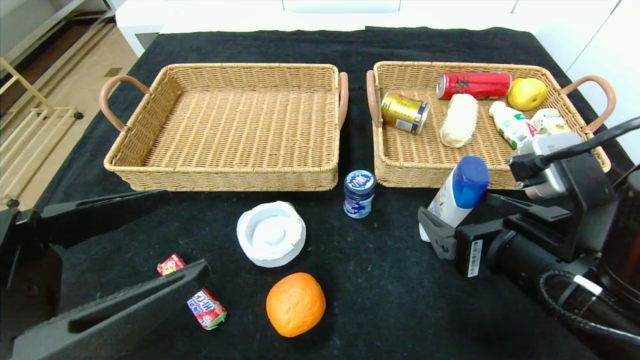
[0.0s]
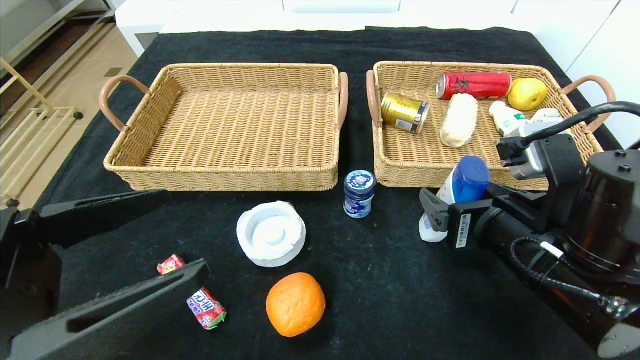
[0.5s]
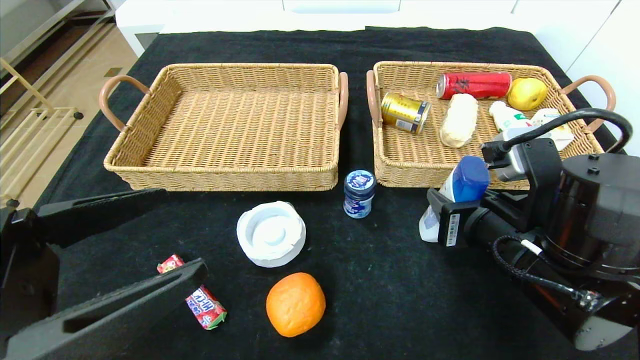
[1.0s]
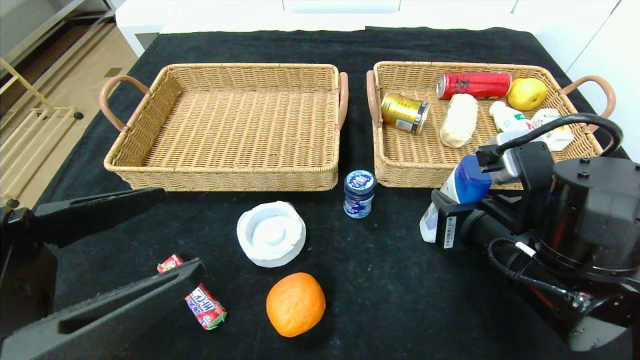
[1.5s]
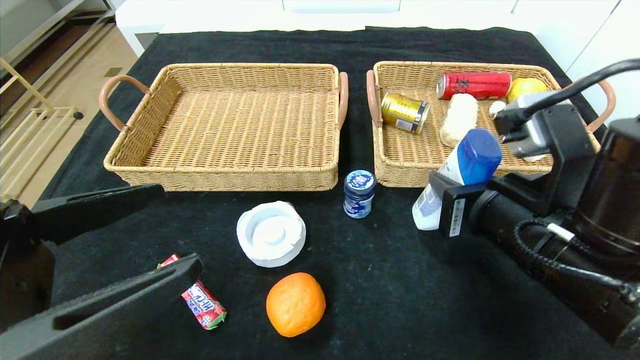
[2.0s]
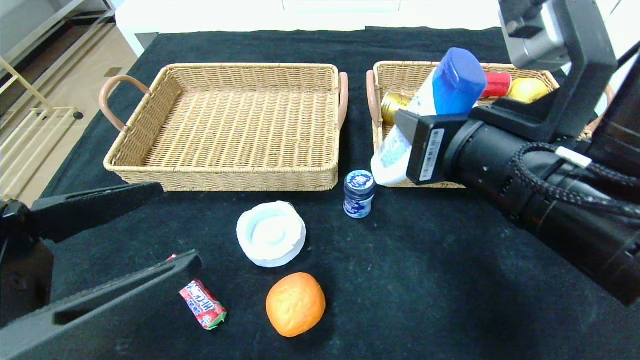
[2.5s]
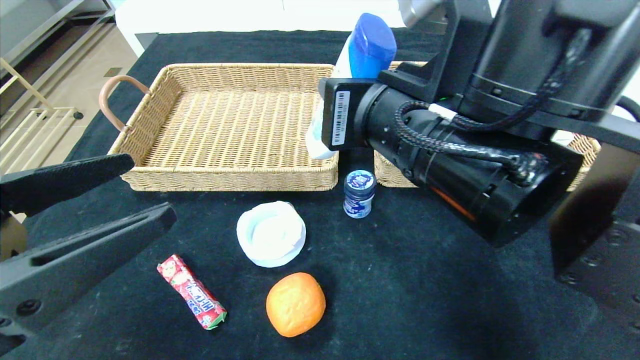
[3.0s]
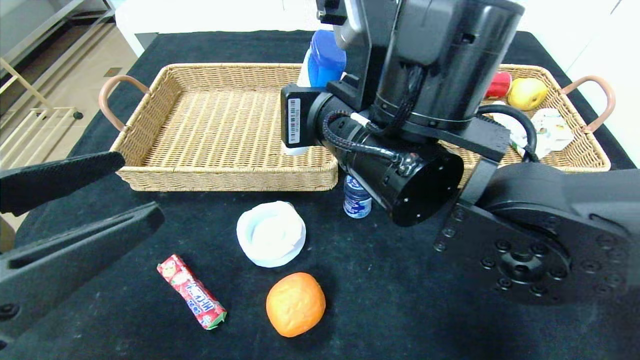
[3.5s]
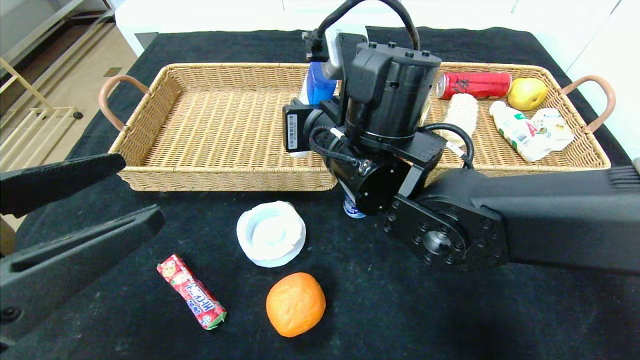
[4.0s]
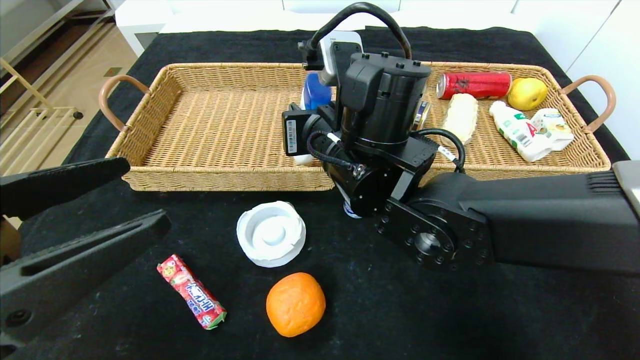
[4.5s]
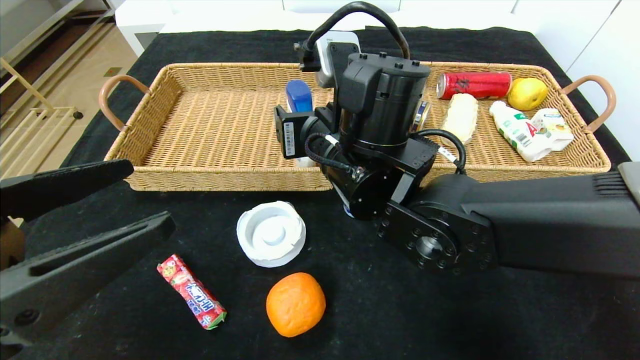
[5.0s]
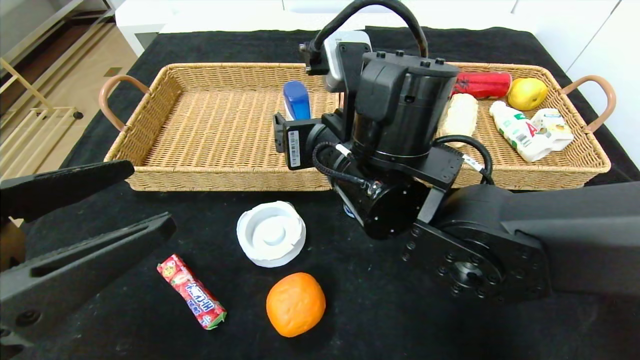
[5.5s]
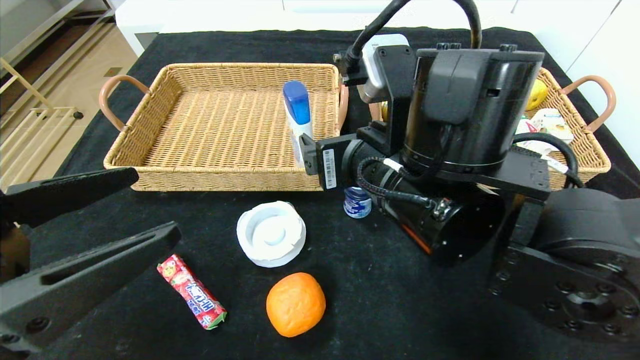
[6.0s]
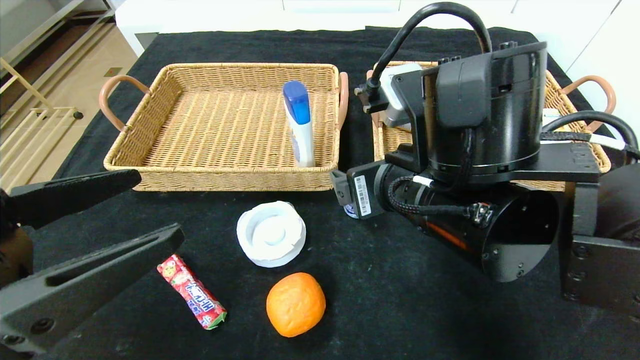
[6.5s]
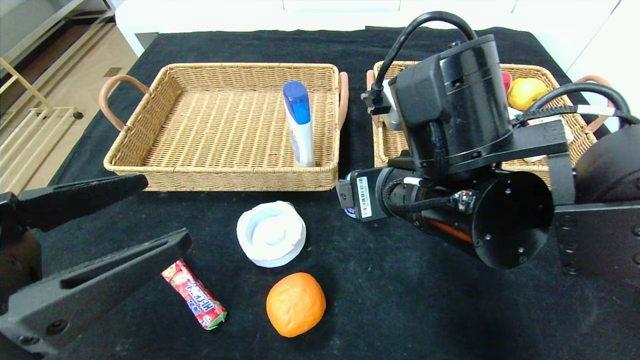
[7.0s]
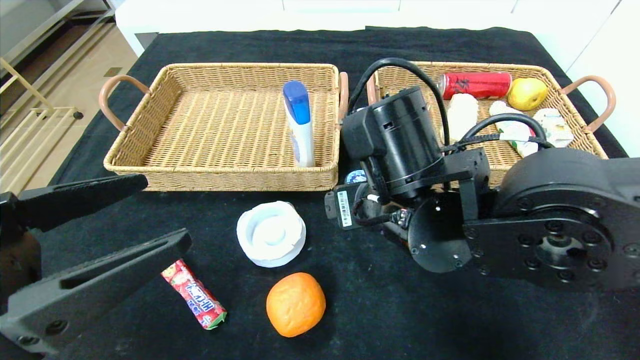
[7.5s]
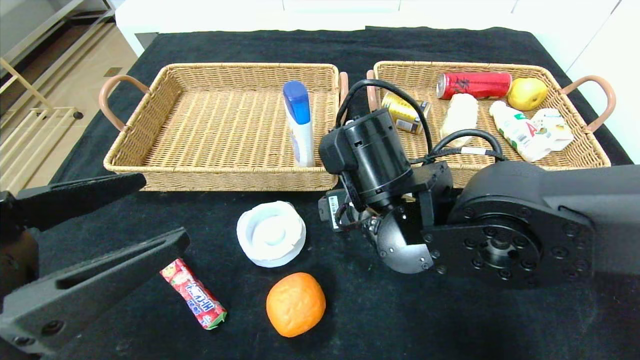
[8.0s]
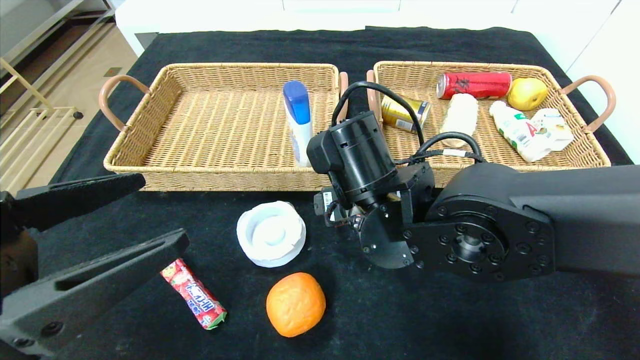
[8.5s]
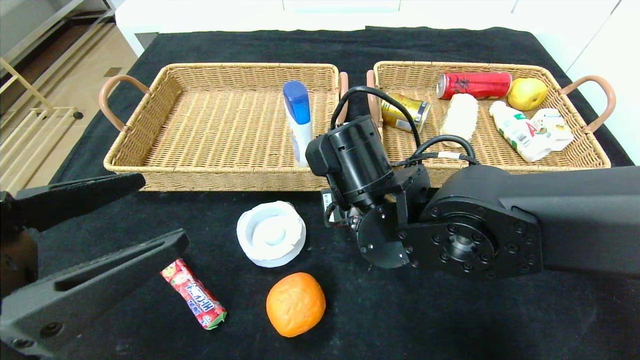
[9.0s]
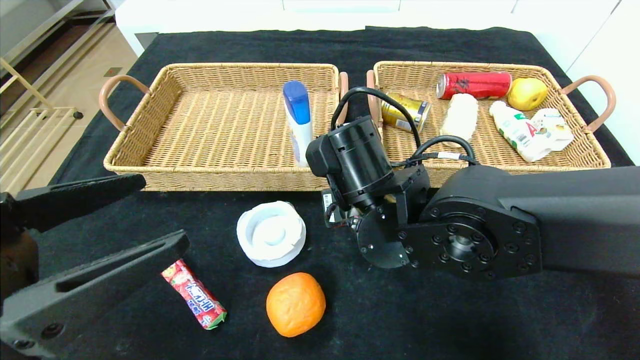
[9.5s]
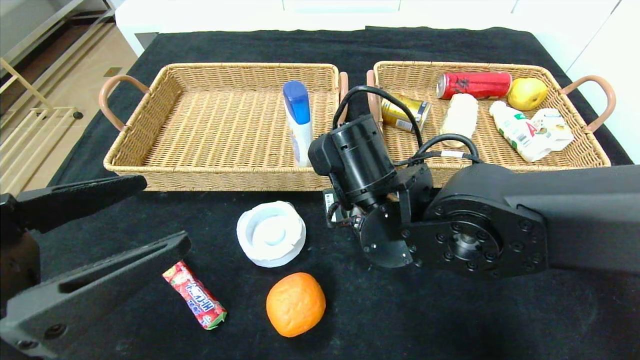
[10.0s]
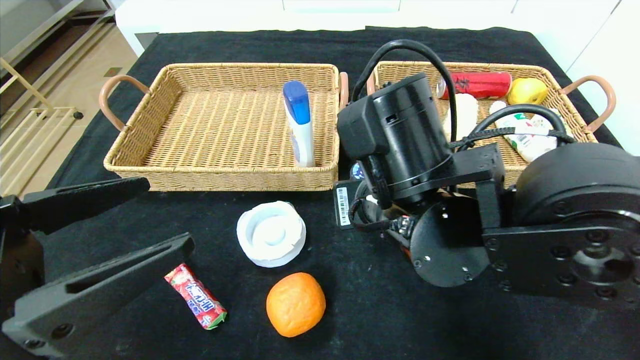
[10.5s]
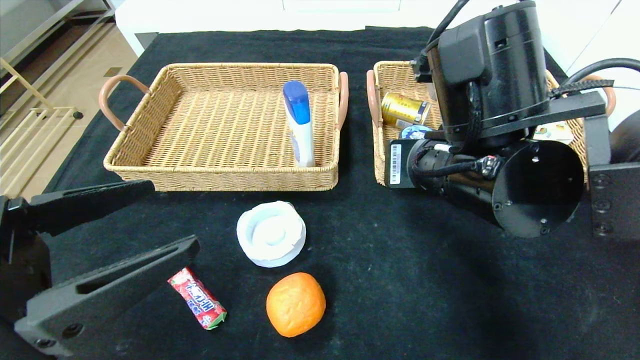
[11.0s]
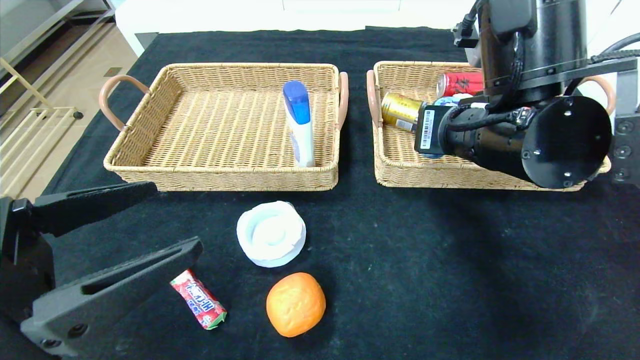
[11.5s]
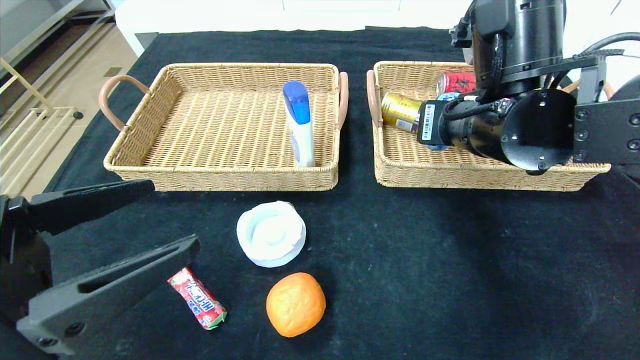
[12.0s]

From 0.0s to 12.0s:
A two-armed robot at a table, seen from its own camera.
From 0.0s to 2.0s: The right gripper closes.
From 2.0s to 4.0s: The right gripper is displaced to the left and forward by roughly 20 cm.
From 4.0s to 6.0s: The right gripper heads backward, covering some 5 cm, and opens up.
From 6.0s to 8.0s: The right gripper moves roughly 5 cm.
From 8.0s to 10.0s: The right gripper closes.
From 10.0s to 12.0s: The right gripper moves to the right and upward, some 15 cm.

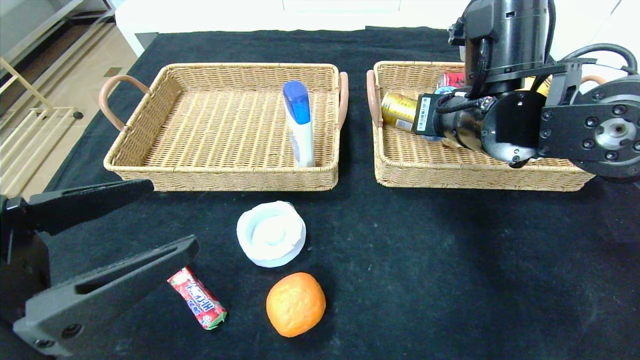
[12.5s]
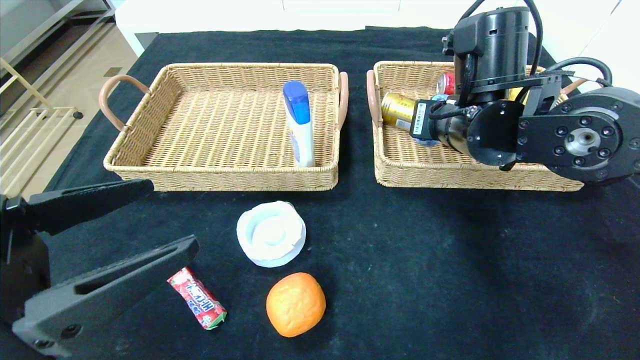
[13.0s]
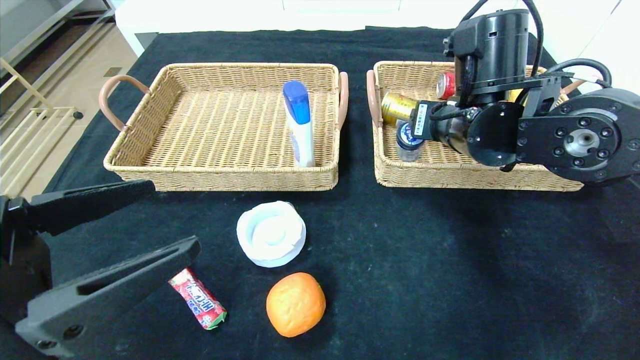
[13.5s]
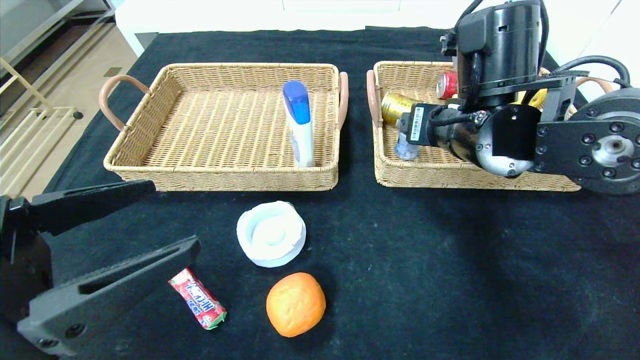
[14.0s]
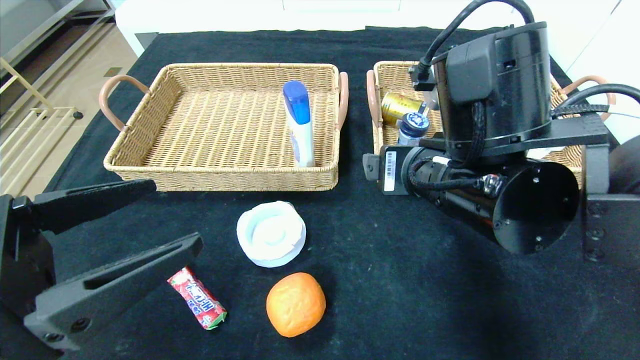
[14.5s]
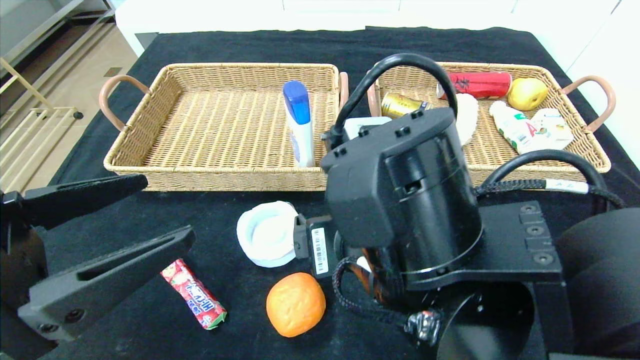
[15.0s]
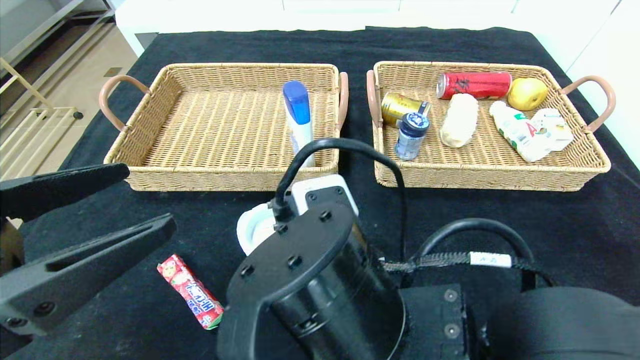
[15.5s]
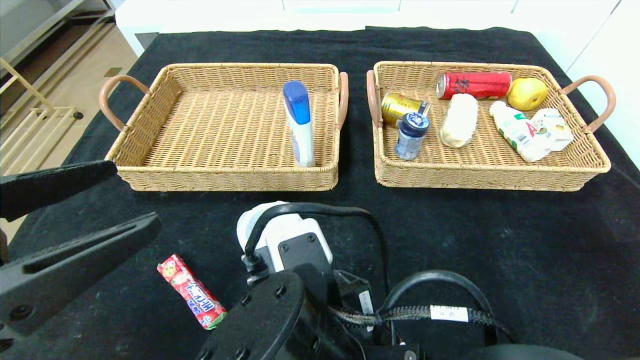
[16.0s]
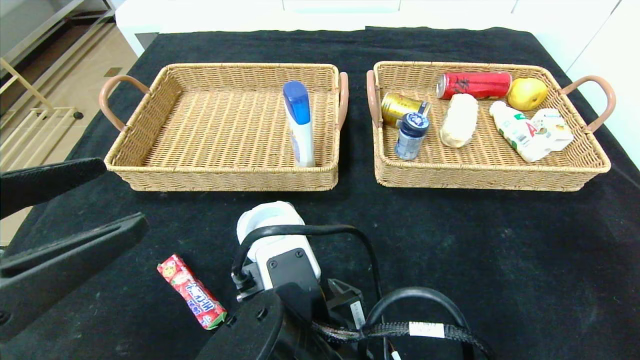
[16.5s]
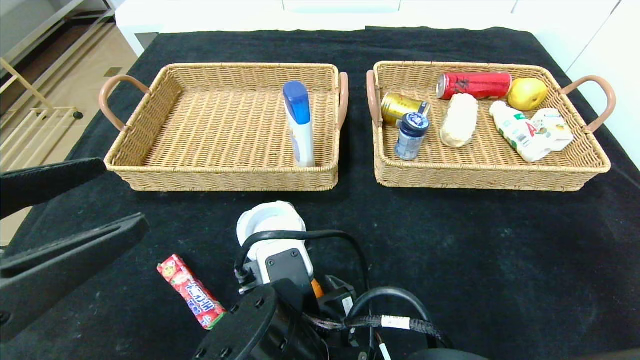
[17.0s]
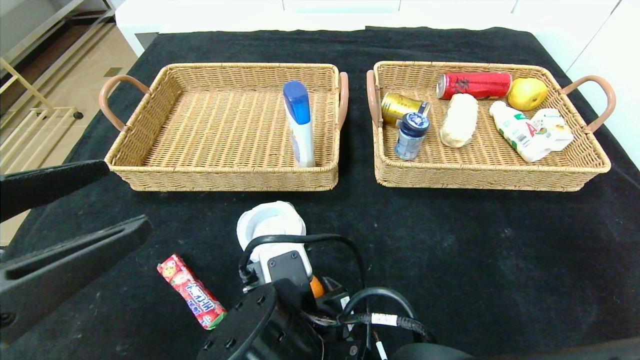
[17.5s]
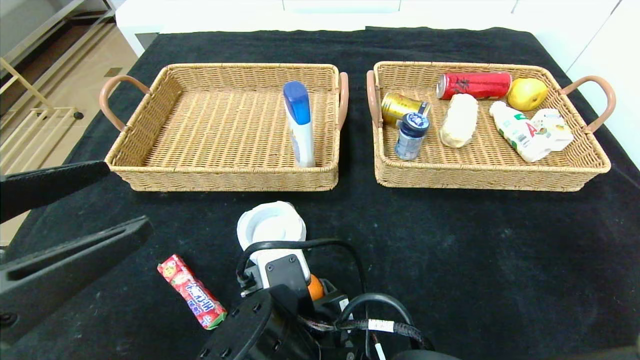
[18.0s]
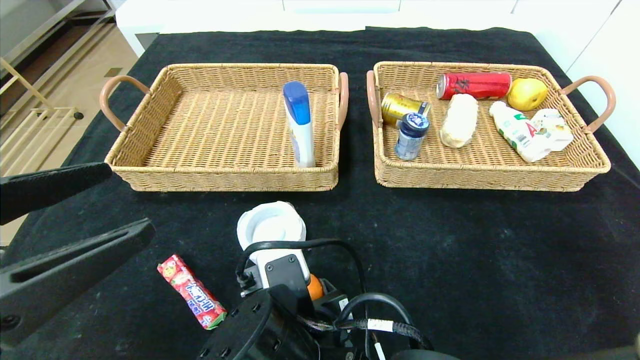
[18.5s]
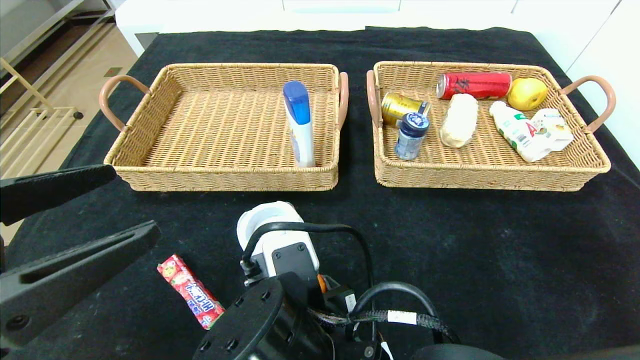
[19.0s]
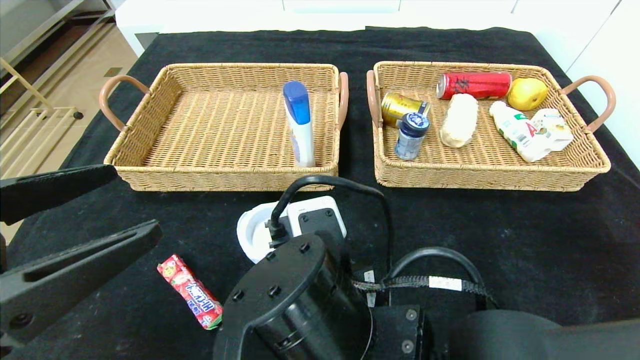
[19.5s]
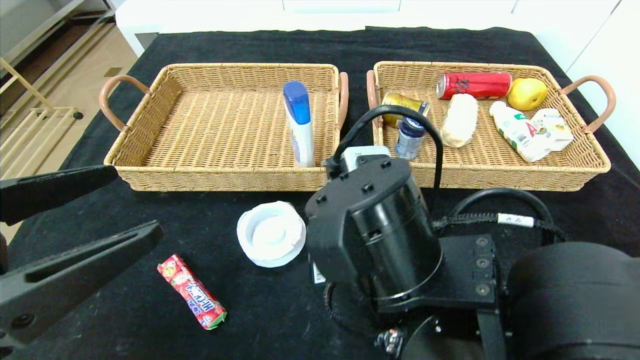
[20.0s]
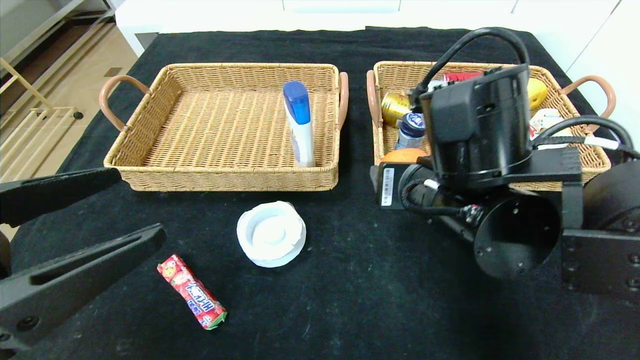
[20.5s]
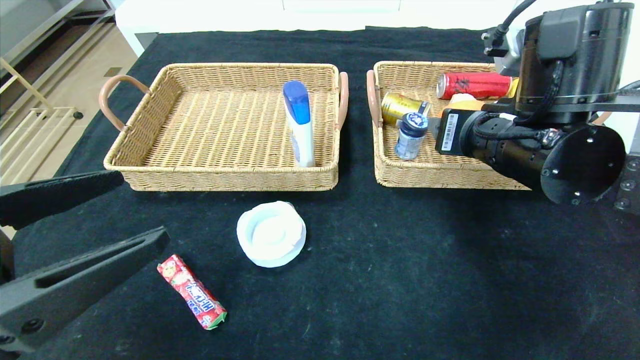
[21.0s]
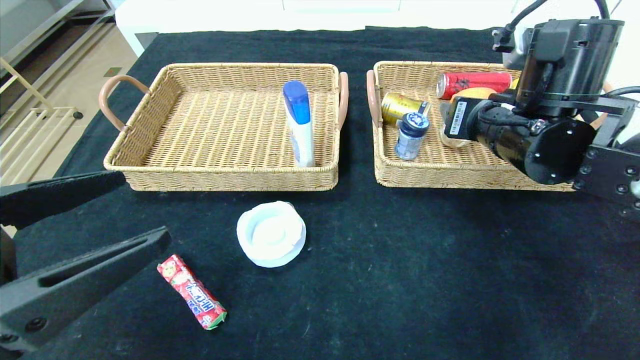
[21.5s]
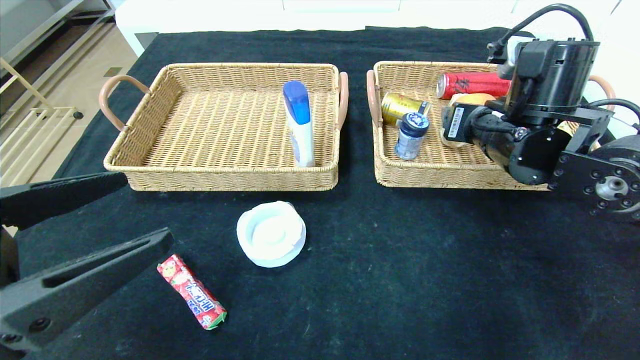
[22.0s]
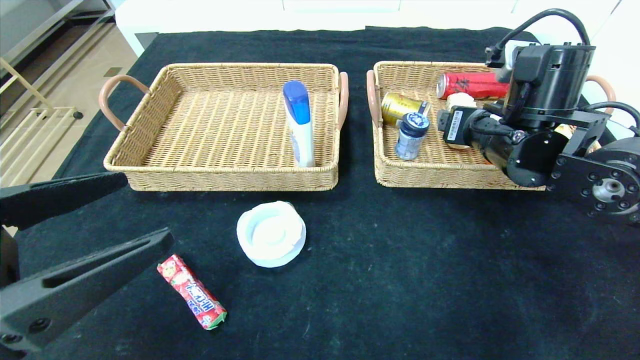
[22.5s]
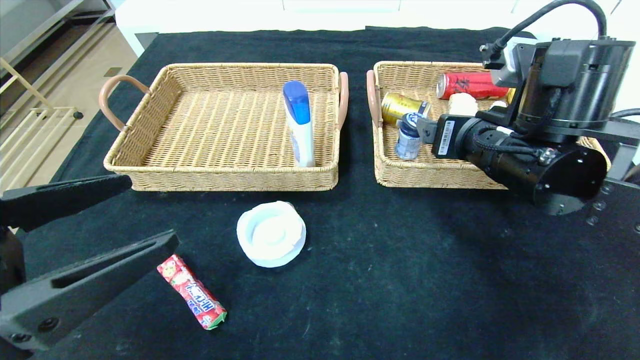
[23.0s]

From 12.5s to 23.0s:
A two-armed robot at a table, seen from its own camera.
Step, from 13.5s to 22.0s: Grasp the orange and put it in the right basket.
From 12.5s to 14.5s: The right gripper travels backward by some 10 cm, and opens its fingers.
From 14.5s to 16.5s: The right gripper shifts roughly 20 cm to the left, downward and backward.
From 16.5s to 19.0s: The grippers move only a little.
From 19.0s to 21.0s: The right gripper is displaced to the right, upward and forward by roughly 25 cm.
